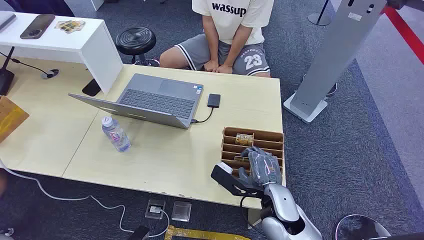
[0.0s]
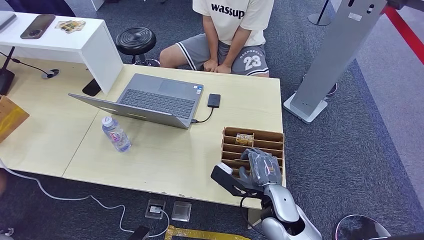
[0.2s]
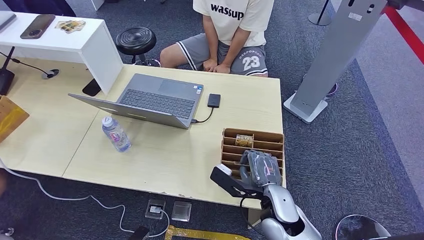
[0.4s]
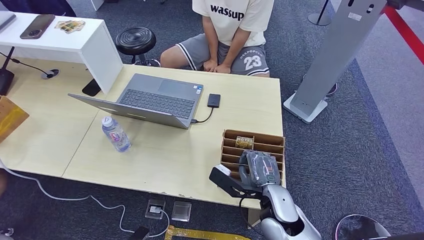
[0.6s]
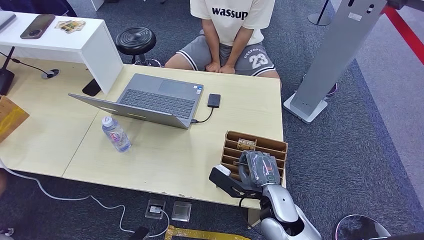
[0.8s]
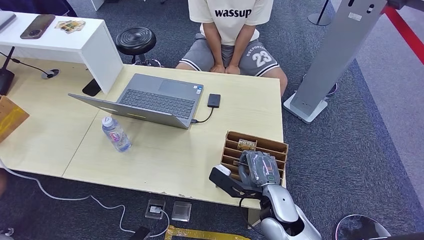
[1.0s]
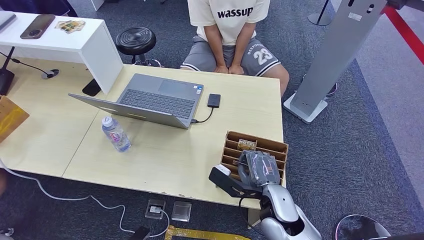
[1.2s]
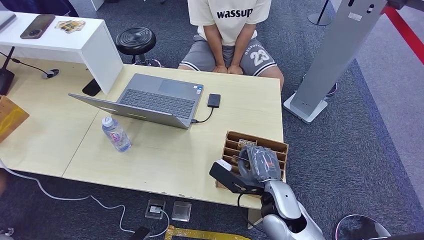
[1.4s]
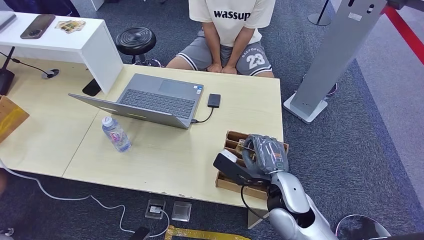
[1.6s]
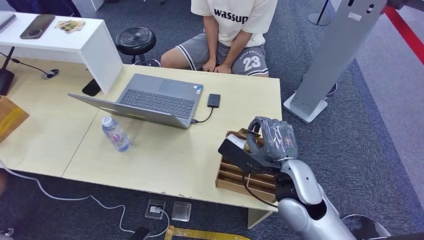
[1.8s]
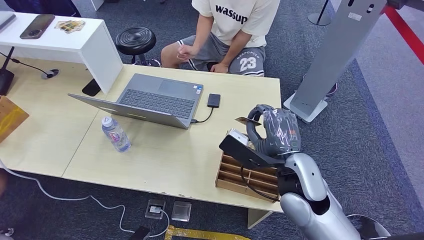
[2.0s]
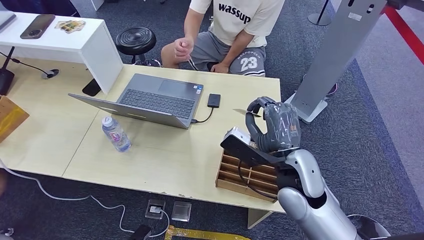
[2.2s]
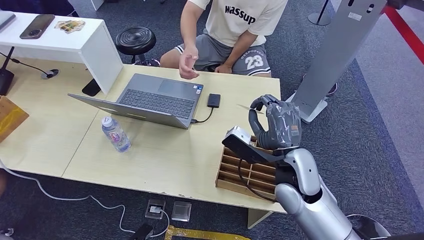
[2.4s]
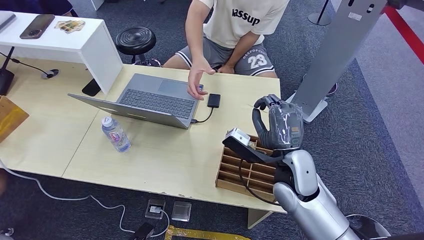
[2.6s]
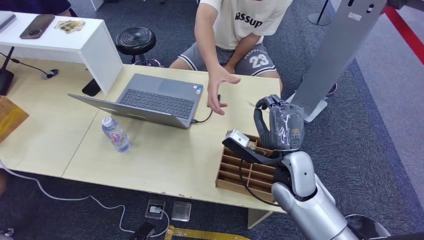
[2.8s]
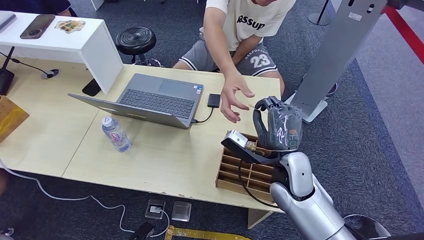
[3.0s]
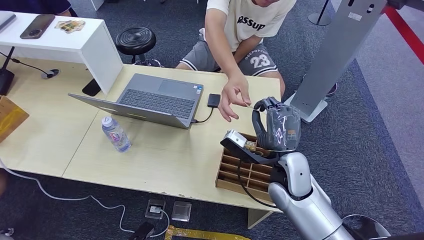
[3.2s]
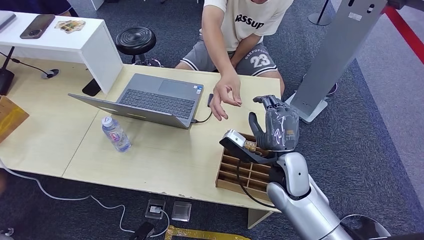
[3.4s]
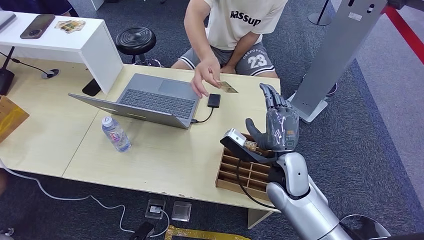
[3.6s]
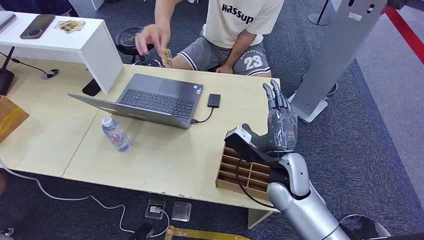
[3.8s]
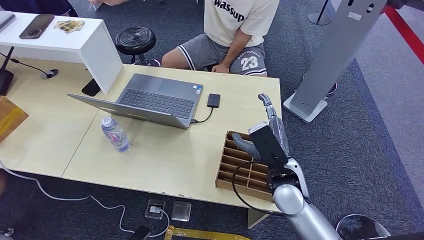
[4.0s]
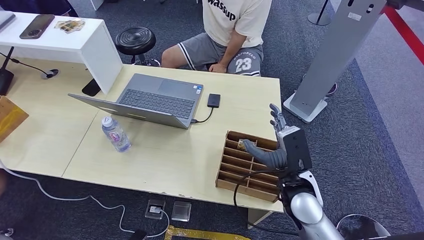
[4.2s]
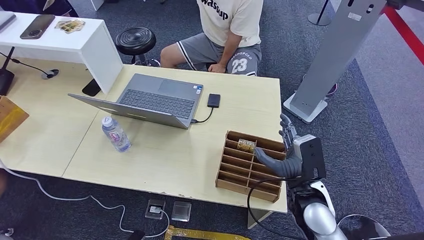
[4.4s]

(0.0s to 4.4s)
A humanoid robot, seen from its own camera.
Step, 0.0s - 1.8s: Pick up the key card from the card box.
Step, 2.2s - 4.4s: Hand the key card to the target.
1.4s - 3.0s: The right hand travels forward by approximately 5 cm.
3.0s - 4.4s: The right hand changes place by roughly 5 cm.
